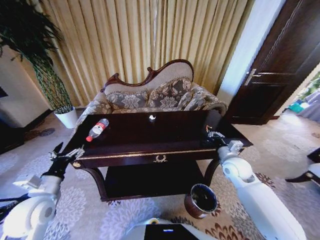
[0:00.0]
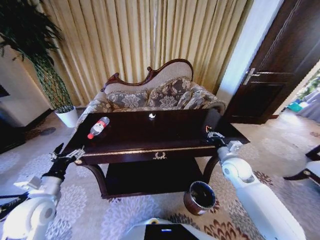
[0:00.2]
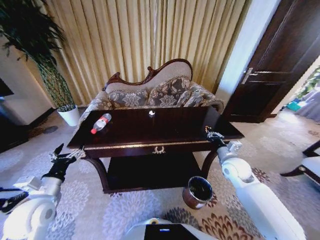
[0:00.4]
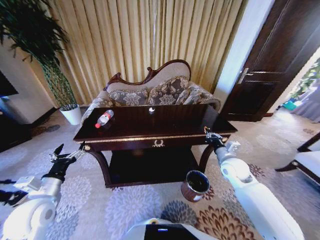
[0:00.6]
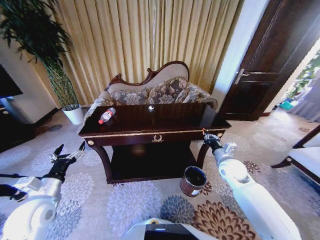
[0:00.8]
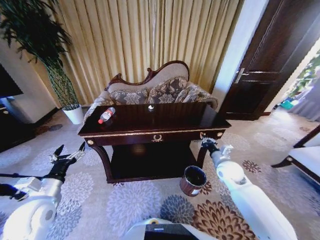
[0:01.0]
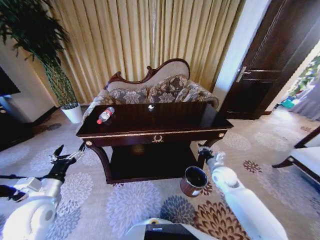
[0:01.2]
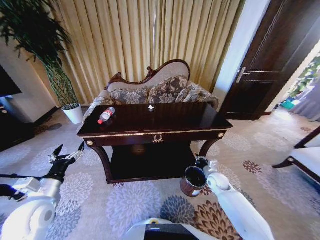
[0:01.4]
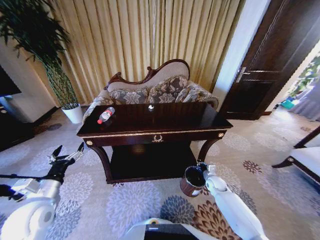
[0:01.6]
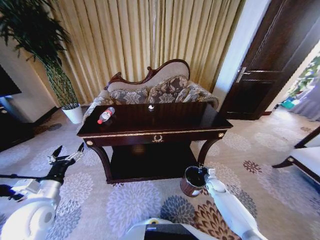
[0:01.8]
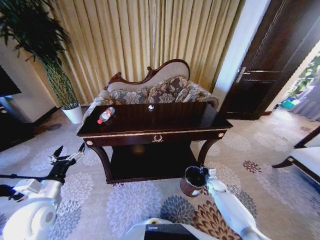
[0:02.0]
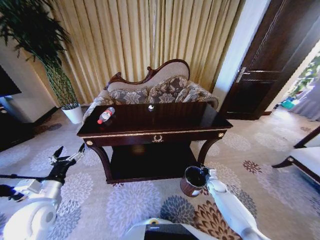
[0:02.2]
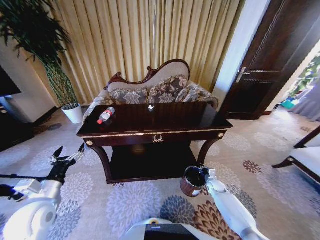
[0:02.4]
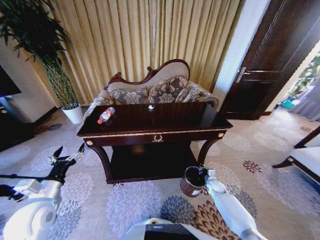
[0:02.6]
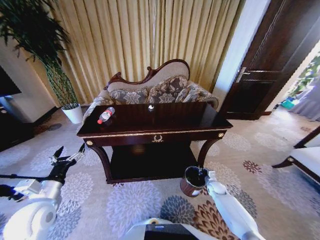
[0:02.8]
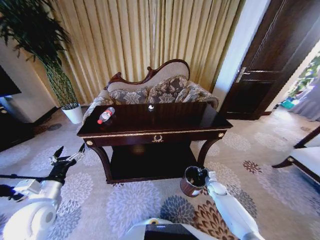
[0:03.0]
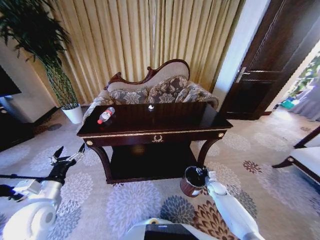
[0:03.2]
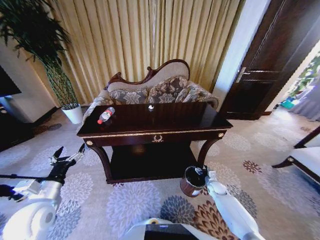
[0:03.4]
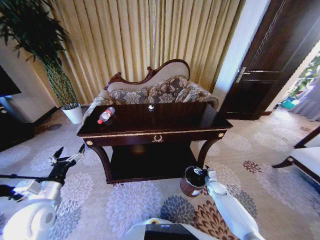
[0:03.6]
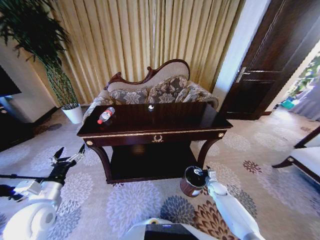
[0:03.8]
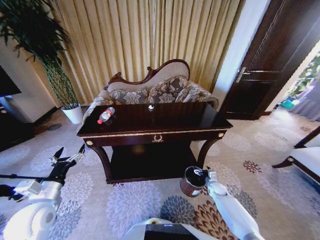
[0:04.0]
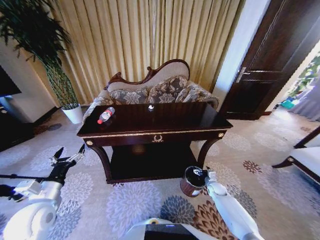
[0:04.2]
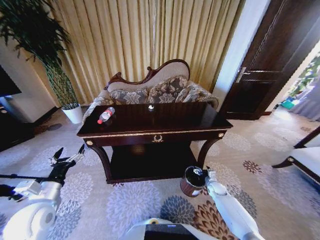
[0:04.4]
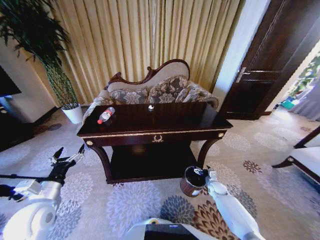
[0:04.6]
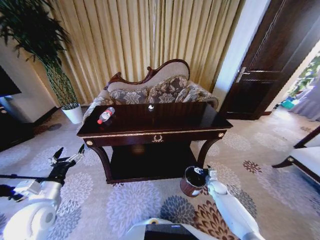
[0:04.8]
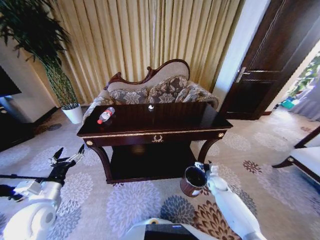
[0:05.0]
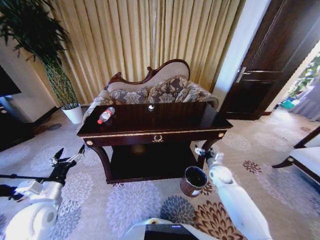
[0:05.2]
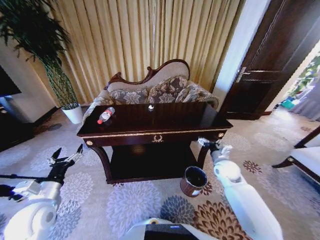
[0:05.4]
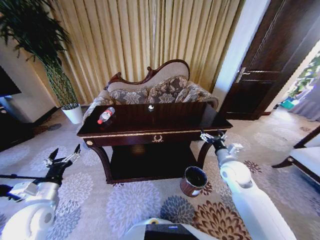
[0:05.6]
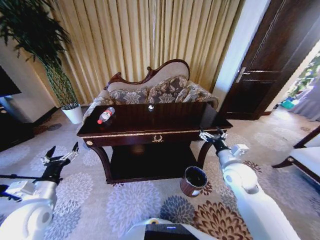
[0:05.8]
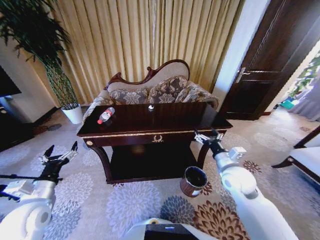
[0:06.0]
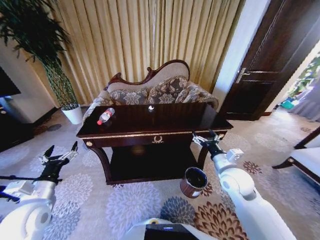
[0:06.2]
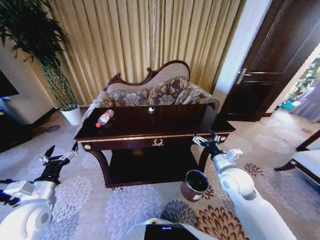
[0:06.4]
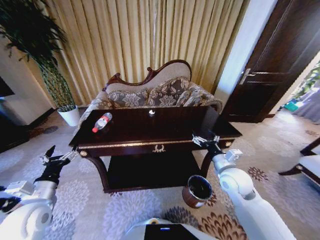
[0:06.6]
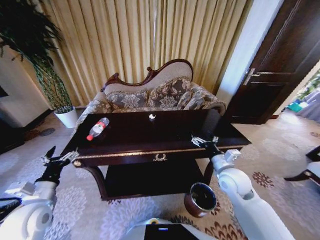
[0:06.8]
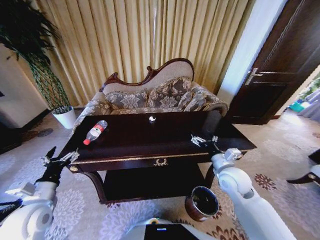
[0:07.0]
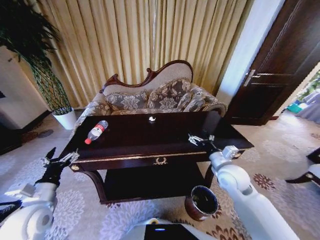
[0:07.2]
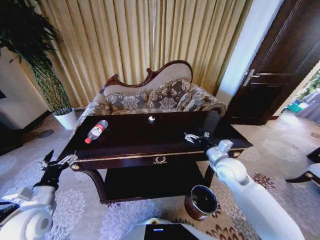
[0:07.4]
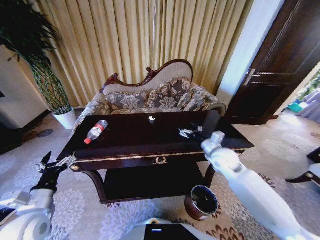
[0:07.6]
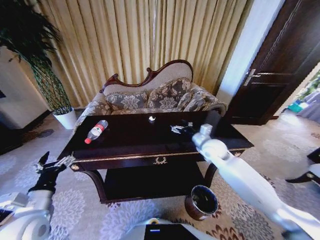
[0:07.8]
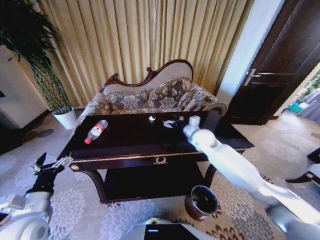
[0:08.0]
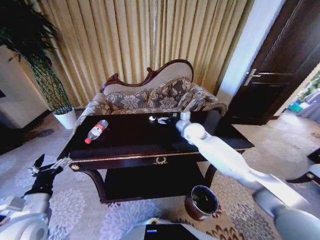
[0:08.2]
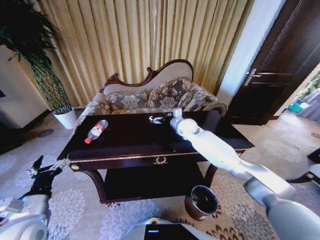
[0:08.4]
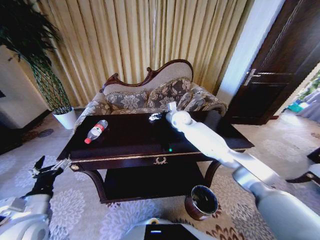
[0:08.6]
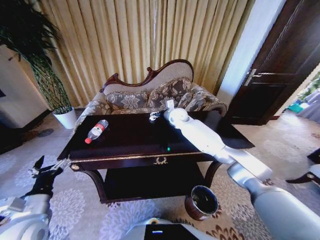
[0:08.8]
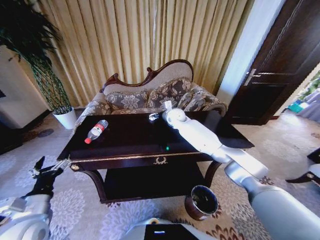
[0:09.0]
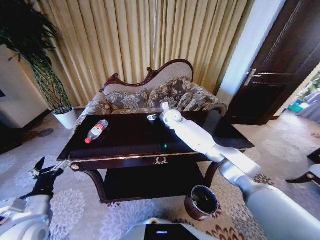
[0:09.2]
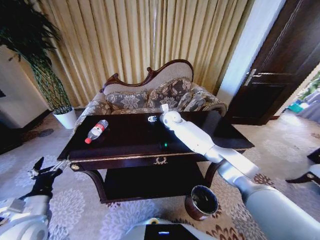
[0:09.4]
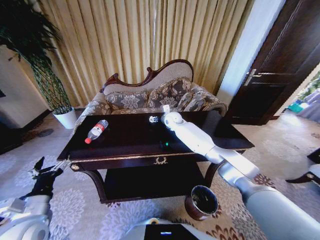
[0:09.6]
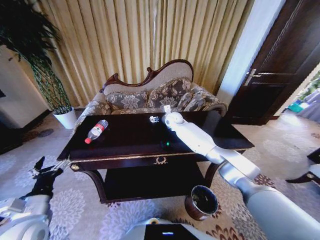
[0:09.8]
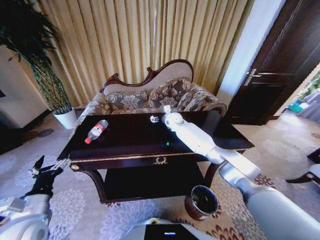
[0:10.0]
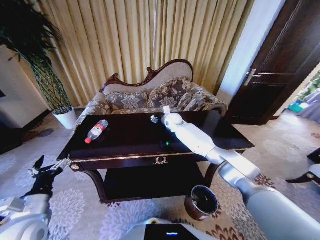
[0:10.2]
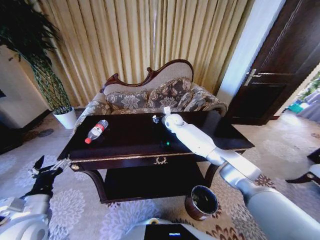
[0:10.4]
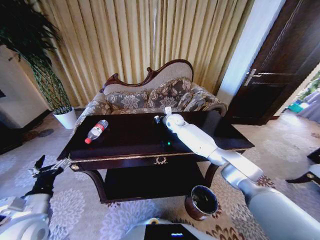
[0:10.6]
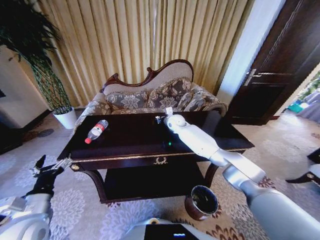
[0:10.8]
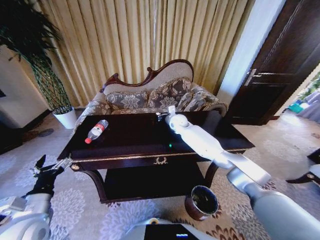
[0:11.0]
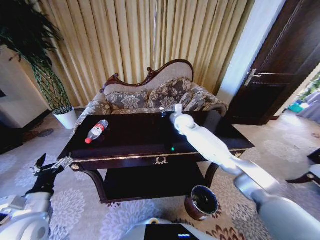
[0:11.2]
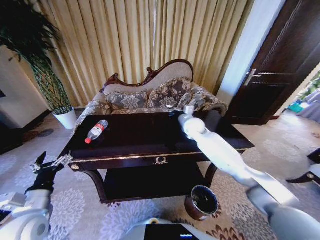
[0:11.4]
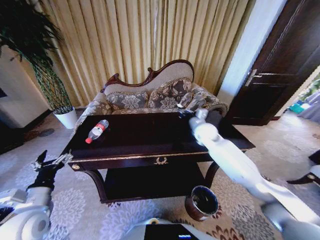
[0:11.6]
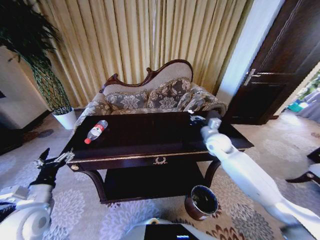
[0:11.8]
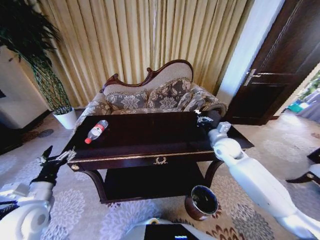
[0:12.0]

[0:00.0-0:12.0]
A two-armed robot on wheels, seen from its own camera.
Task of the whole recording: Move to the front of the table and place the trash on the table into the trash bin.
0:00.0 to 0:01.6: The right gripper goes about 25 cm downward.
0:01.6 to 0:03.0: The right gripper heads downward, covering roughly 5 cm.
0:04.4 to 0:06.0: The right gripper moves upward, about 30 cm.
0:06.0 to 0:07.6: The right gripper goes about 10 cm forward.
0:07.6 to 0:09.0: The right gripper travels forward and to the left by roughly 30 cm.
0:09.0 to 0:10.4: The right gripper closes its fingers.
0:10.4 to 0:12.0: The right gripper heads to the right and backward, covering some 30 cm, and closes.

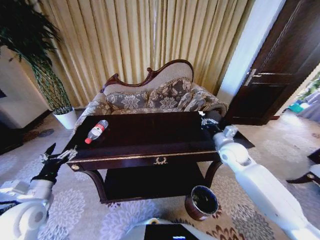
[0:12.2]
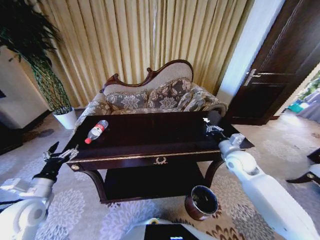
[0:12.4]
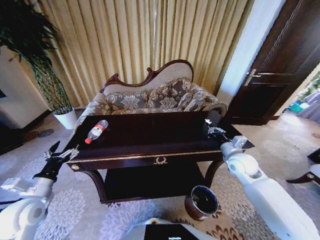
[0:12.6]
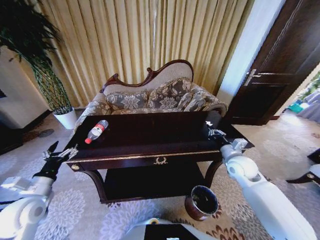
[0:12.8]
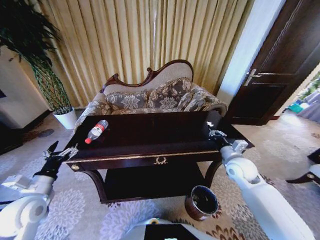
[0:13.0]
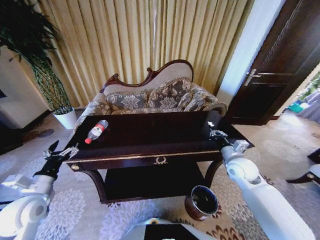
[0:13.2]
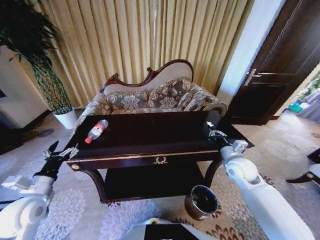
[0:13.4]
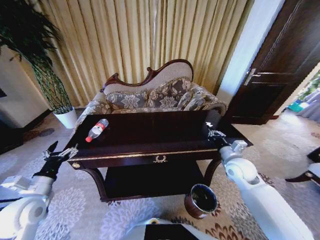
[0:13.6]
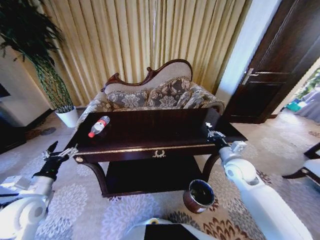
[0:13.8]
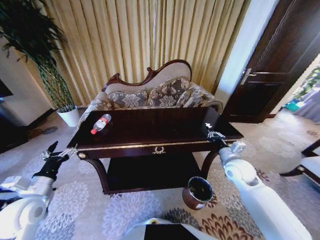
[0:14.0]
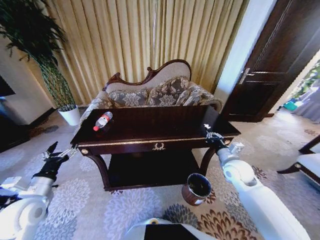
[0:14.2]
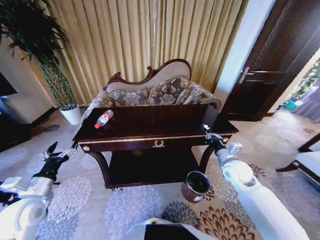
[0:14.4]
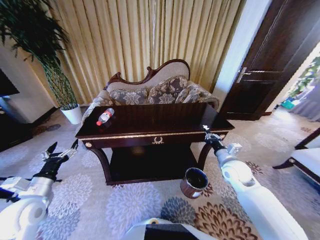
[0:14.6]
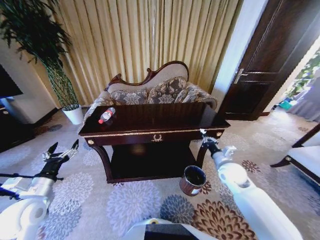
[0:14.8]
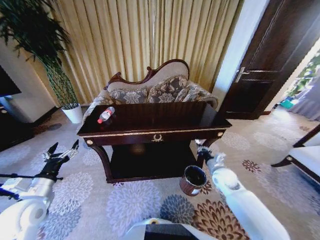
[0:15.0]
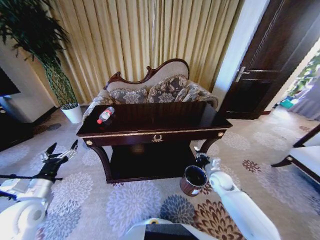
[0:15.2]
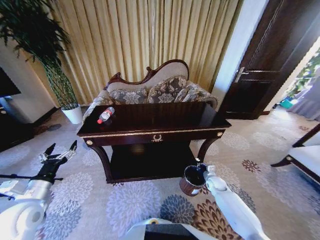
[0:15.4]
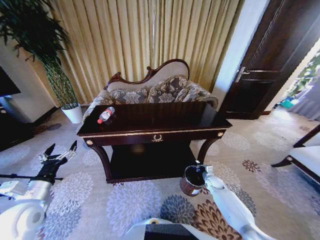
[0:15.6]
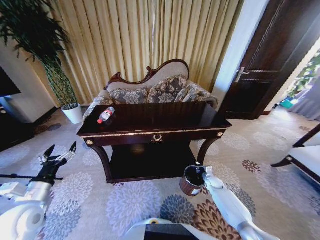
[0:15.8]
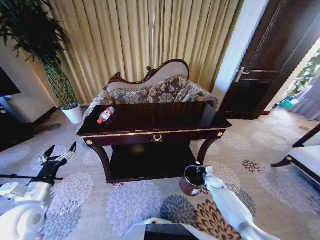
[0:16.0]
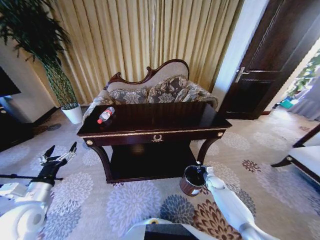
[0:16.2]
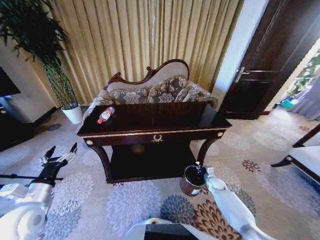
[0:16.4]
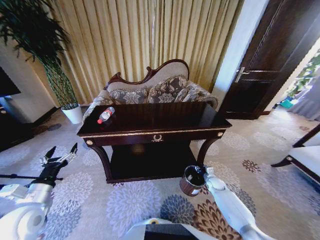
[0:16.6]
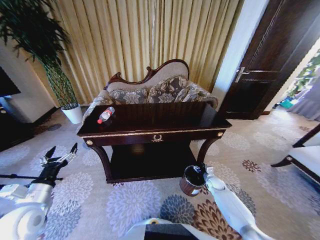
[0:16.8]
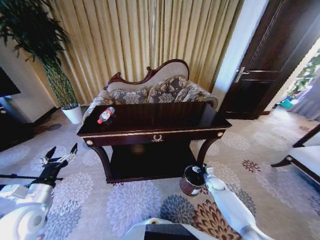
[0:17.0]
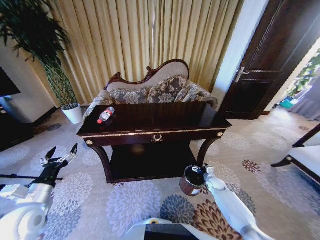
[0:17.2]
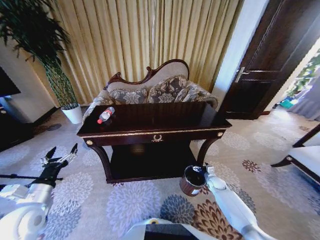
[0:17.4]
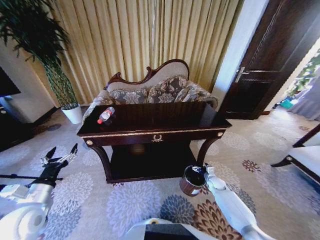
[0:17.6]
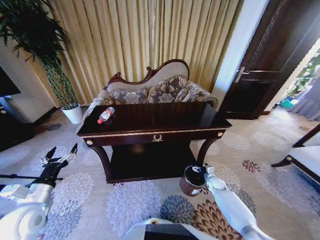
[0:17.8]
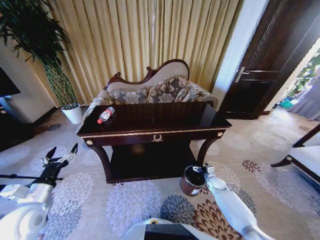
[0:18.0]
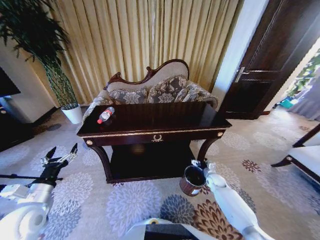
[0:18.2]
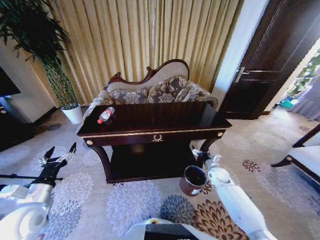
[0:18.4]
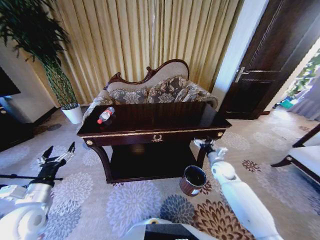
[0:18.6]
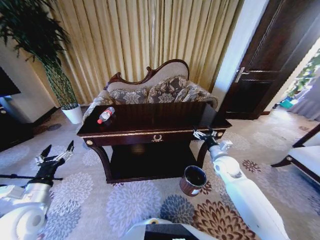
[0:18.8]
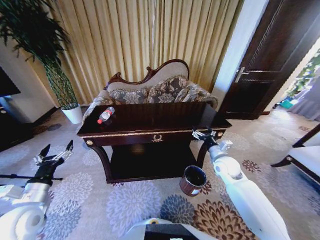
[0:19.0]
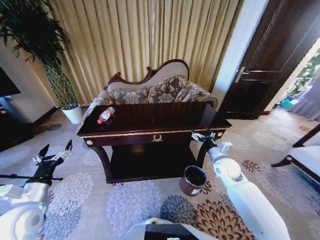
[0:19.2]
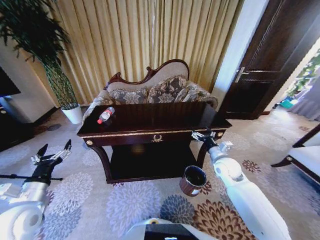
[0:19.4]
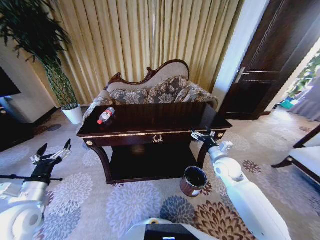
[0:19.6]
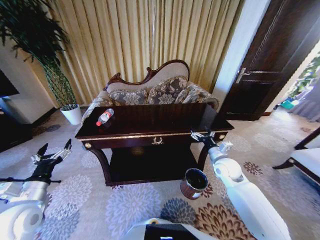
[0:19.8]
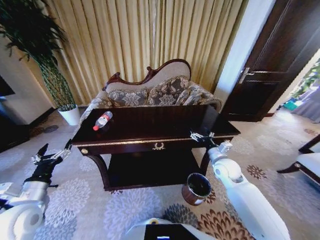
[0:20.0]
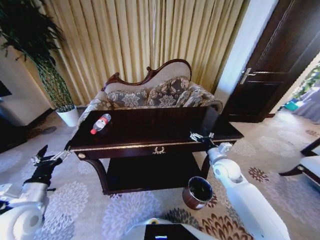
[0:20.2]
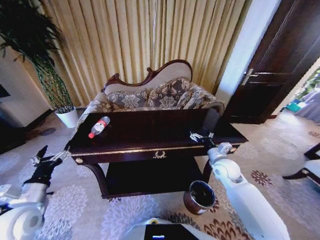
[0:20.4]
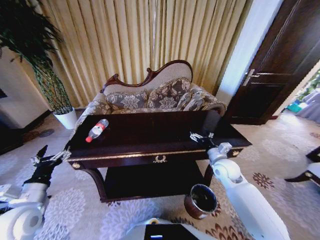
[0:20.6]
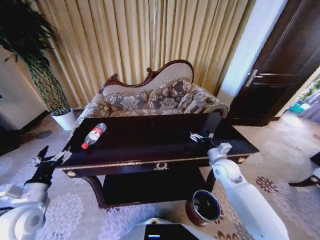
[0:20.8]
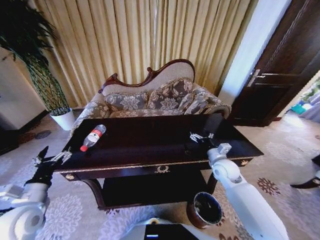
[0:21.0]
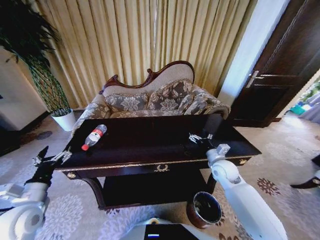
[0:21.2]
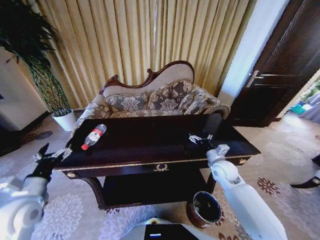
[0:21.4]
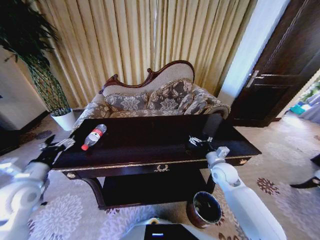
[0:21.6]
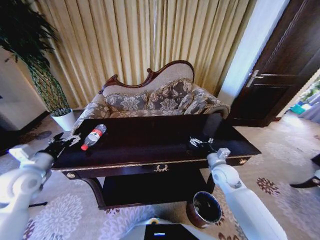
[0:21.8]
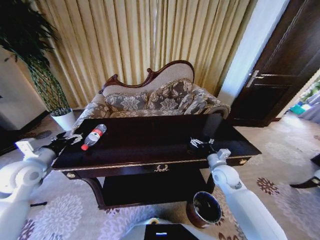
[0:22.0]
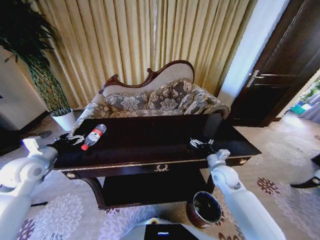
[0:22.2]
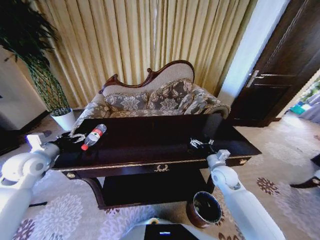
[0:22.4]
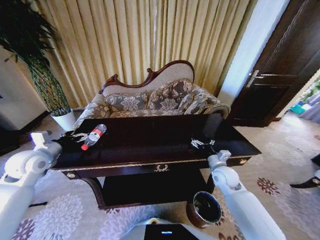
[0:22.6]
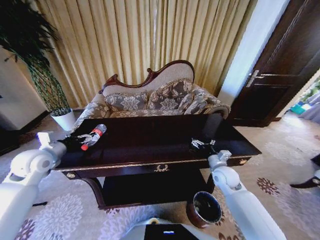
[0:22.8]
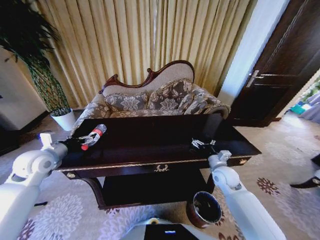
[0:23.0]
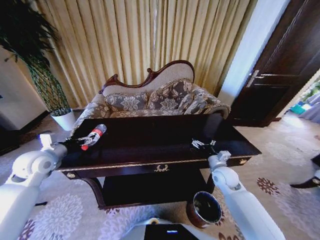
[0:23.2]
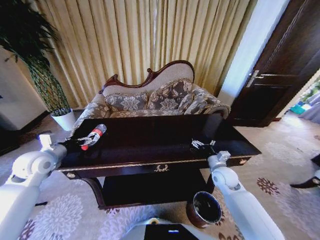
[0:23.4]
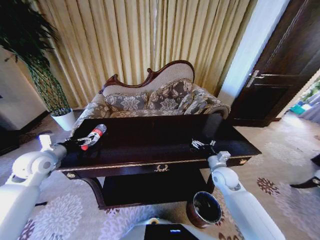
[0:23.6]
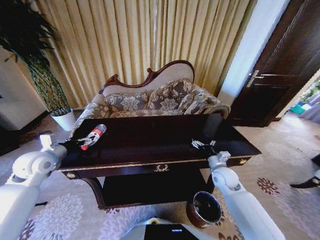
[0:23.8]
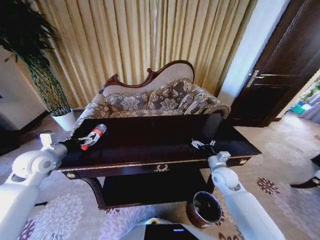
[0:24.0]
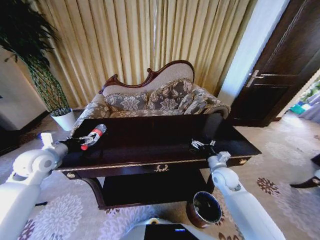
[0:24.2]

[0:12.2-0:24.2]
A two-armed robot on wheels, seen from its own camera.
Task of the whole recording: Move to the front of the table and place the trash on the table into the trash bin.
0:12.2 to 0:13.8: The right gripper goes roughly 5 cm backward.
0:13.8 to 0:15.2: The right gripper goes about 15 cm downward.
0:15.2 to 0:16.6: The right gripper travels downward by about 10 cm, and opens its fingers.
0:16.6 to 0:18.2: The right gripper opens up.
0:18.2 to 0:19.8: The right gripper heads upward, covering approximately 20 cm.
0:21.2 to 0:22.6: The left gripper moves forward and upward, approximately 15 cm.
0:22.6 to 0:24.2: The grippers move only a little.
